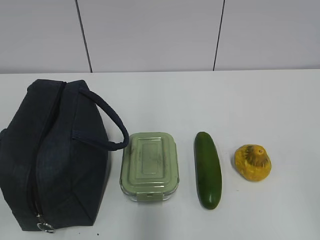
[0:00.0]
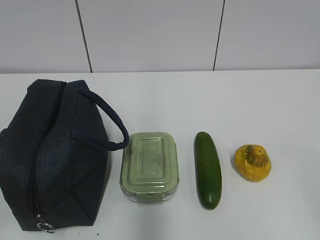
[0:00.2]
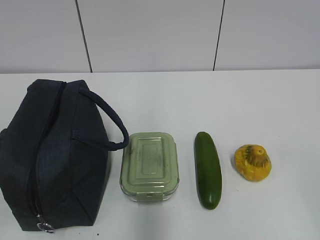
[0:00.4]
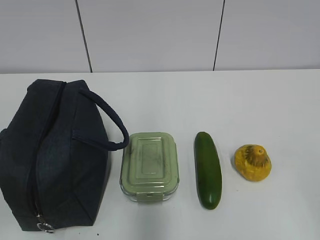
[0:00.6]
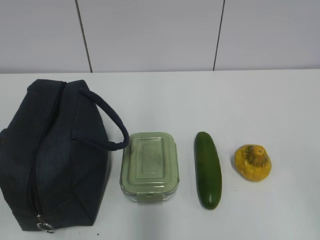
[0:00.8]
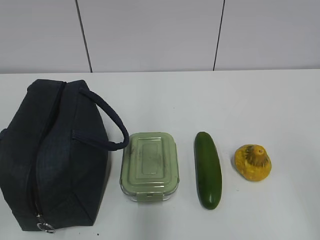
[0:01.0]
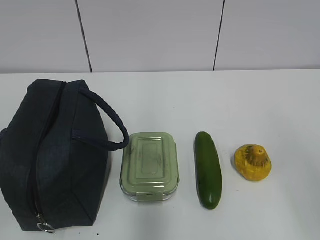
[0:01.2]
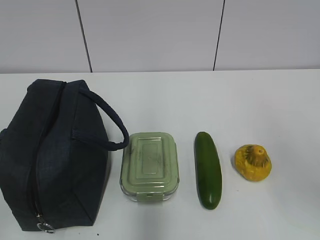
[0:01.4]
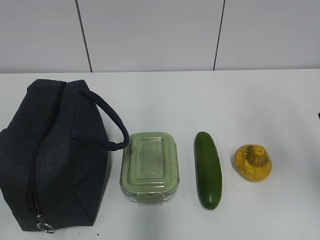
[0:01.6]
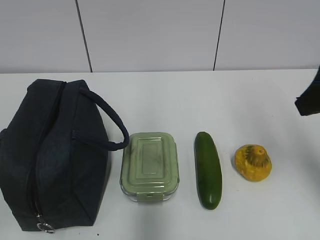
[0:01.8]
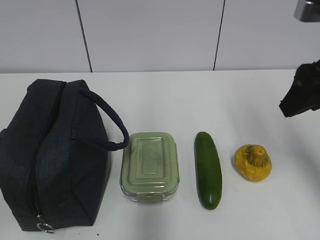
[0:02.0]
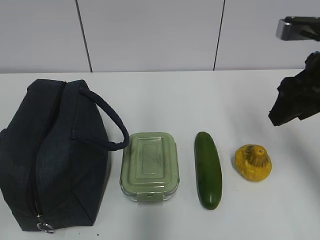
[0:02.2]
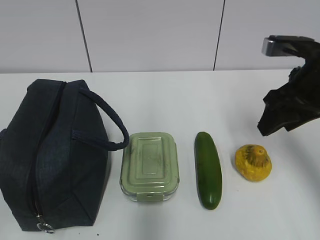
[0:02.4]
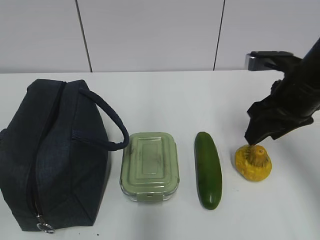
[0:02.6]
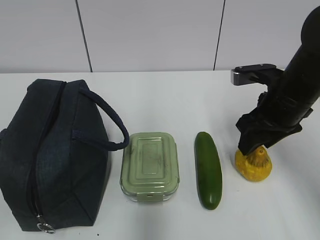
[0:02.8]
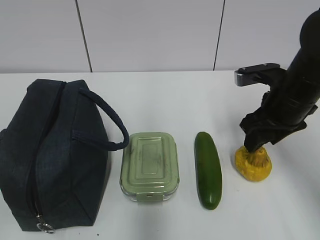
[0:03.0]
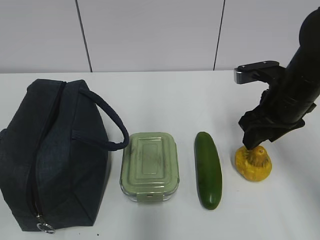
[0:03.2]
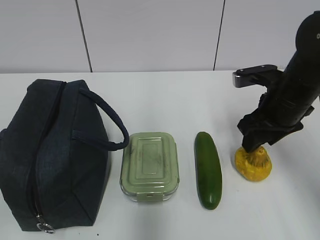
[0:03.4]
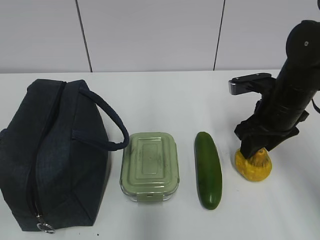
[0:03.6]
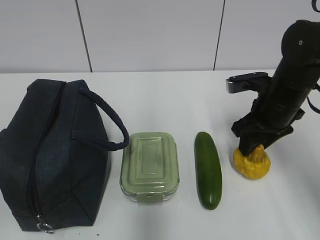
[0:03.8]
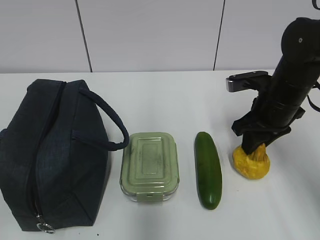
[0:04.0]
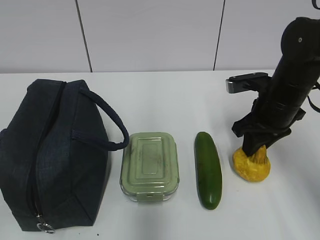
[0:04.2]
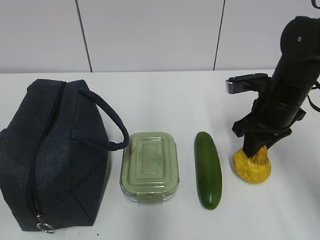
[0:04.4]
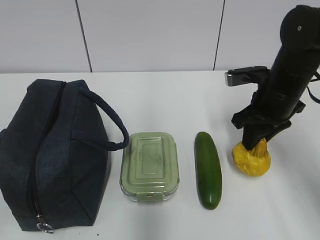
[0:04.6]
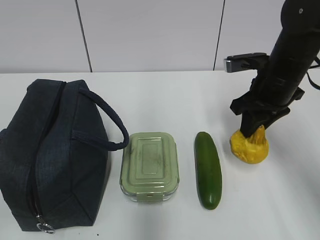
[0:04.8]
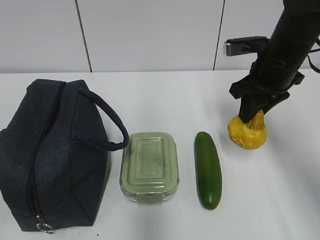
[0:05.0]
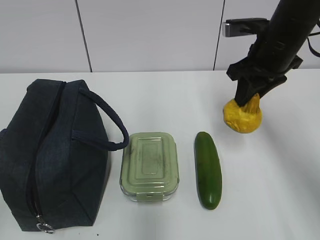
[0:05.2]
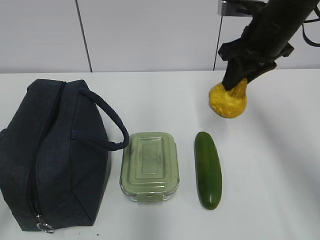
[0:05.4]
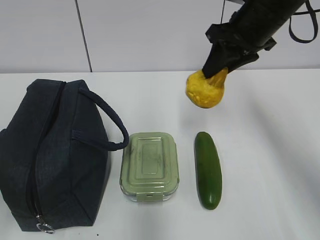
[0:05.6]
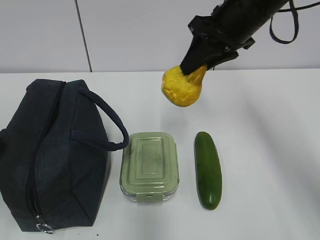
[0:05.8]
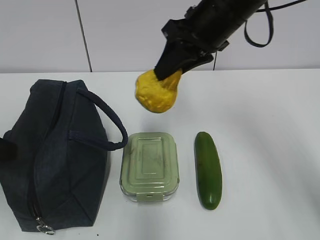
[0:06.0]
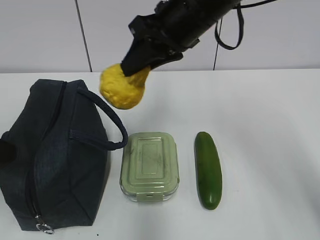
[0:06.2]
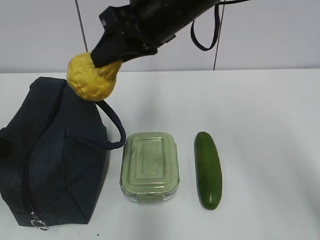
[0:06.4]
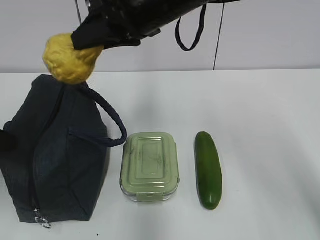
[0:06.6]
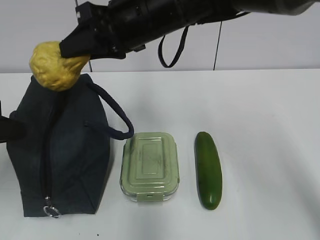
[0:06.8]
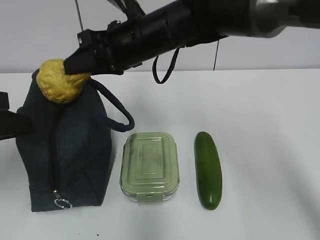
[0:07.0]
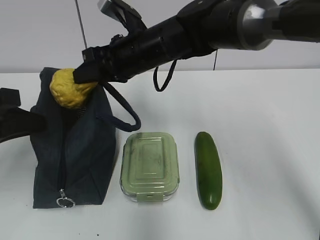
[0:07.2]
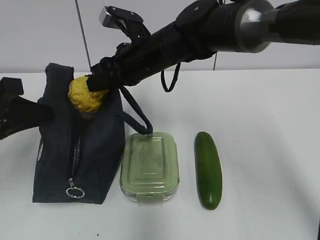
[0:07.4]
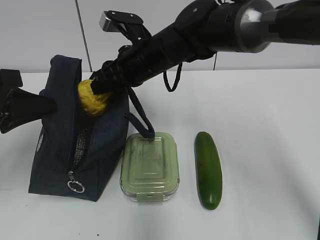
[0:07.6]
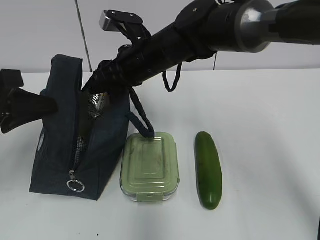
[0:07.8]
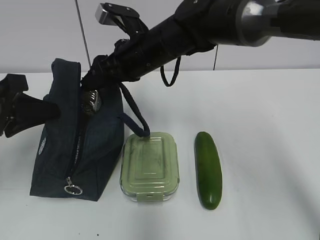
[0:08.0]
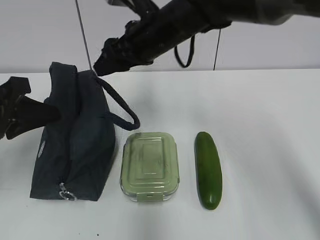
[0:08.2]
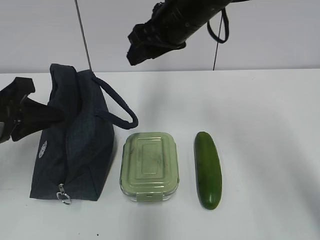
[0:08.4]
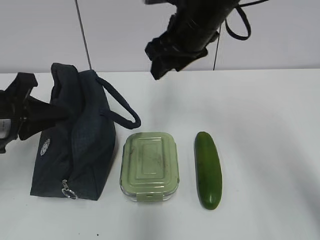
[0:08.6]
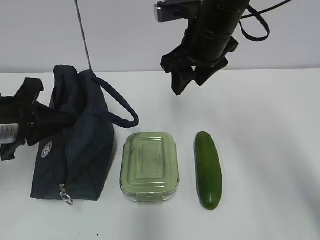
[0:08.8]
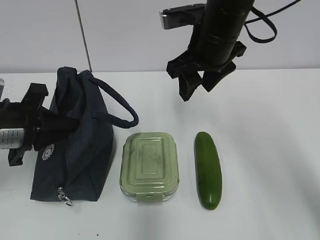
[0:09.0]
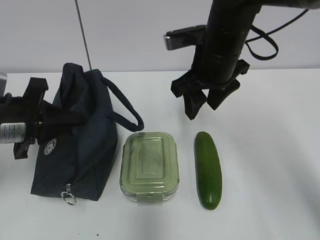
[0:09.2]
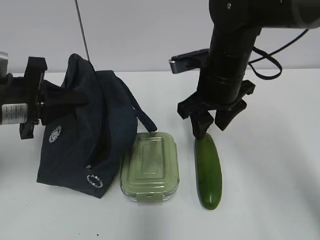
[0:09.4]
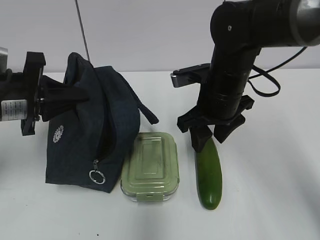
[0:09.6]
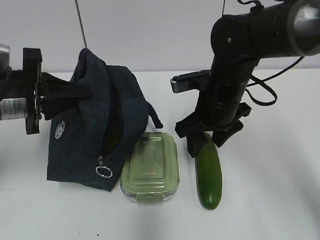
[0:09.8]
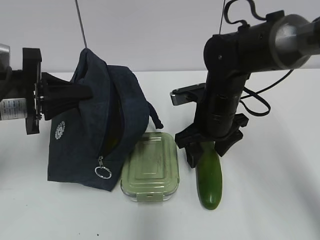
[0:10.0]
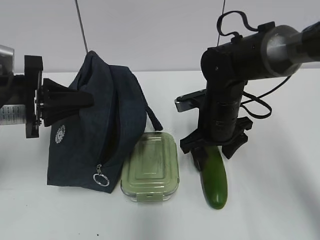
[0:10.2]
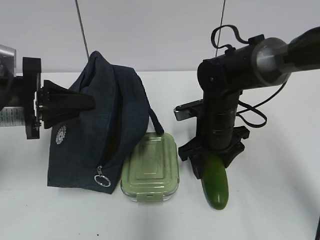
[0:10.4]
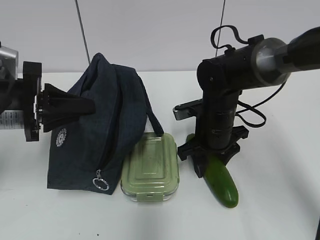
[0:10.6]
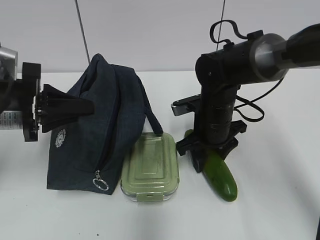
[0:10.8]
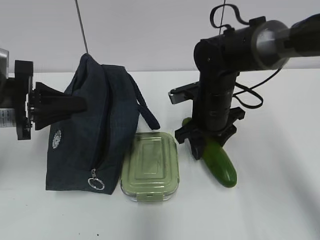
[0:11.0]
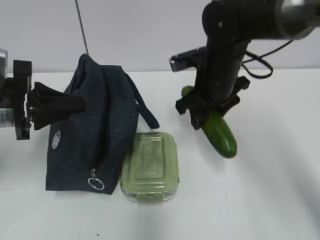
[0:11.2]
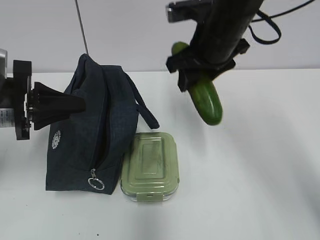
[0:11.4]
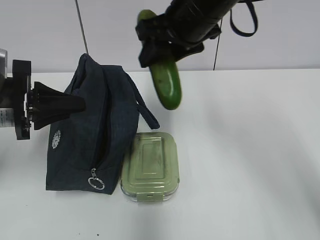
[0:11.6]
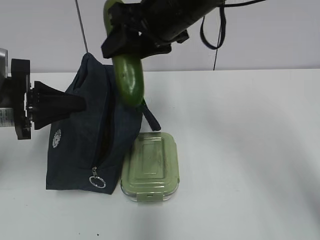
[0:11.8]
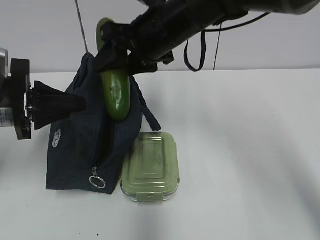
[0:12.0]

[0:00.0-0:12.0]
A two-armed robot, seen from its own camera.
0:01.6 to 0:03.0: The right gripper is displaced forward and downward by roughly 20 cm.
0:03.0 to 0:04.4: The right gripper closes its fingers.
0:04.4 to 0:06.0: The right gripper is displaced upward and to the left by approximately 15 cm. The left gripper moves forward, some 20 cm.
0:06.0 to 0:07.6: The right gripper moves to the left and downward, some 15 cm, while the left gripper moves approximately 5 cm, and closes its fingers.
0:07.6 to 0:09.0: The left gripper goes some 5 cm downward, while the right gripper goes roughly 10 cm to the right.
0:09.0 to 0:10.4: The right gripper travels downward by roughly 15 cm.
0:10.4 to 0:12.0: The right gripper moves upward and to the left, approximately 20 cm.

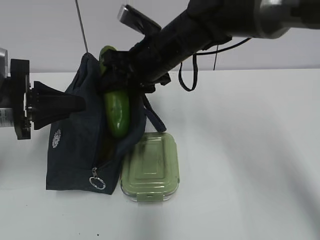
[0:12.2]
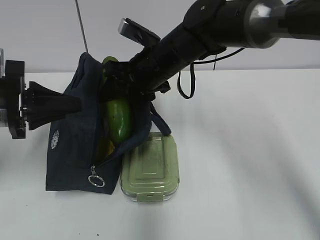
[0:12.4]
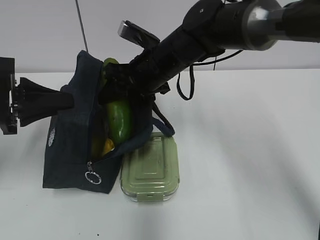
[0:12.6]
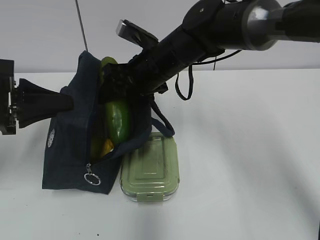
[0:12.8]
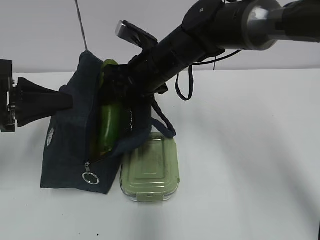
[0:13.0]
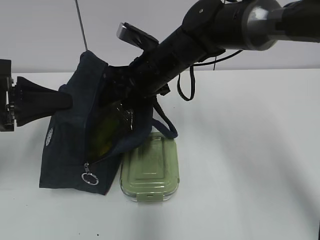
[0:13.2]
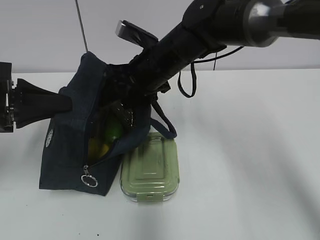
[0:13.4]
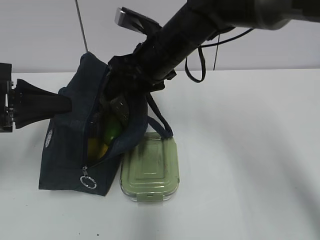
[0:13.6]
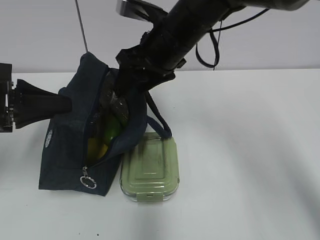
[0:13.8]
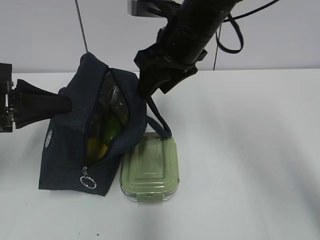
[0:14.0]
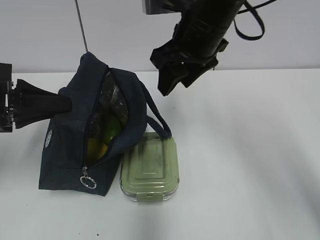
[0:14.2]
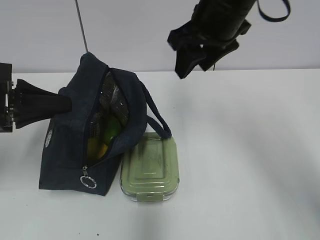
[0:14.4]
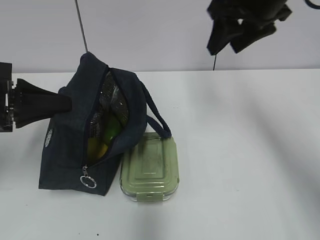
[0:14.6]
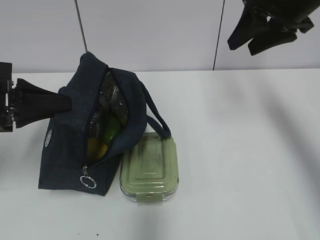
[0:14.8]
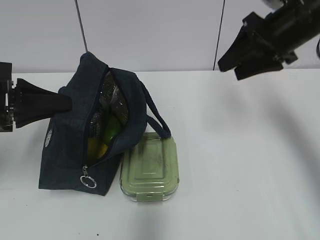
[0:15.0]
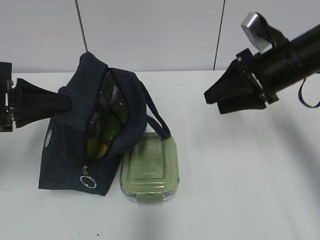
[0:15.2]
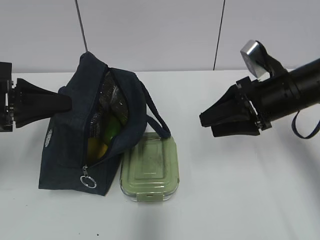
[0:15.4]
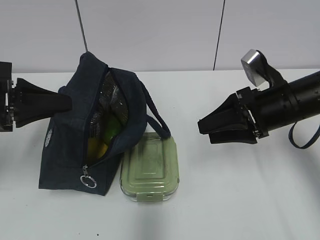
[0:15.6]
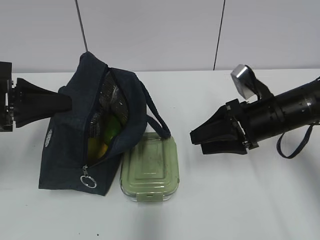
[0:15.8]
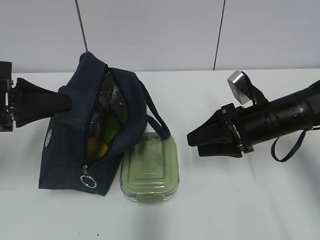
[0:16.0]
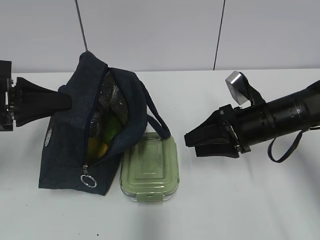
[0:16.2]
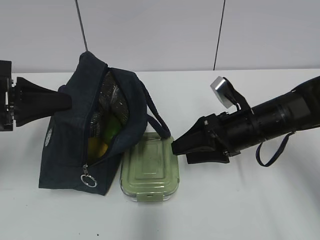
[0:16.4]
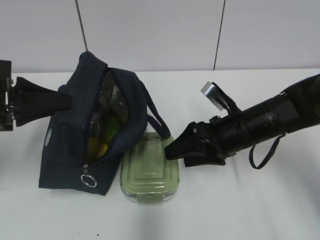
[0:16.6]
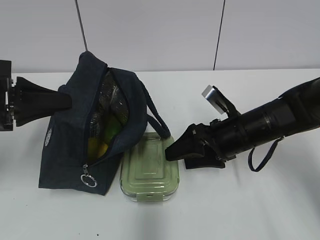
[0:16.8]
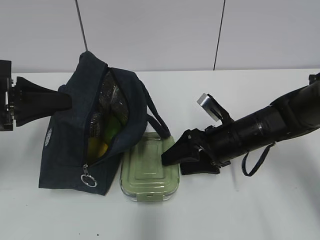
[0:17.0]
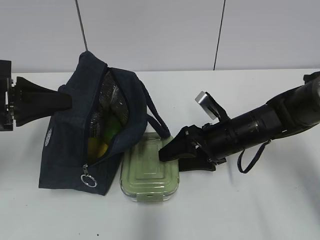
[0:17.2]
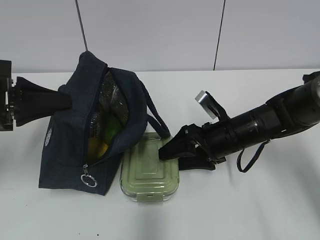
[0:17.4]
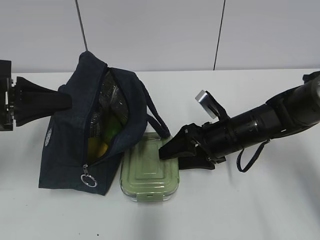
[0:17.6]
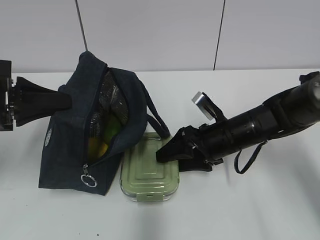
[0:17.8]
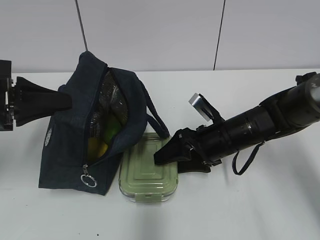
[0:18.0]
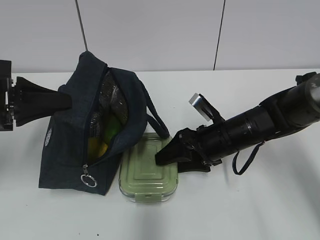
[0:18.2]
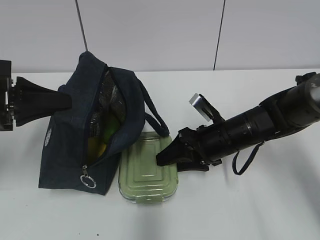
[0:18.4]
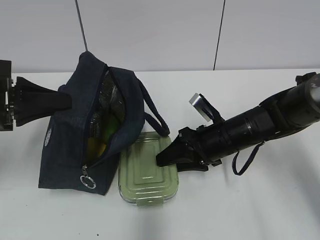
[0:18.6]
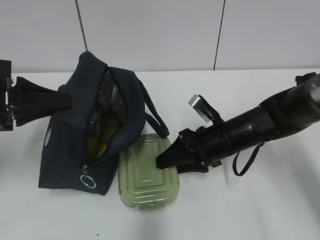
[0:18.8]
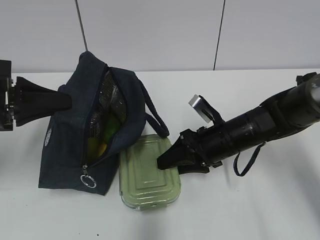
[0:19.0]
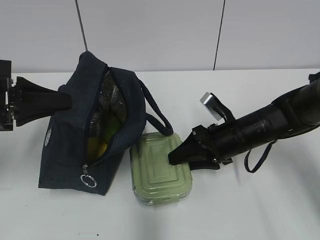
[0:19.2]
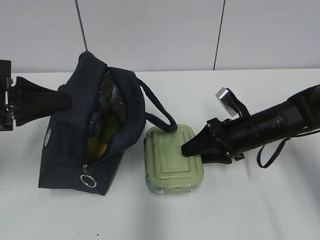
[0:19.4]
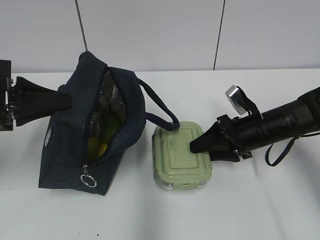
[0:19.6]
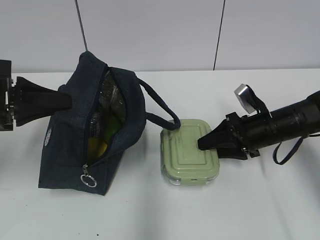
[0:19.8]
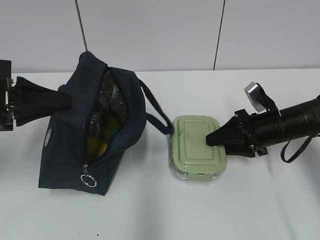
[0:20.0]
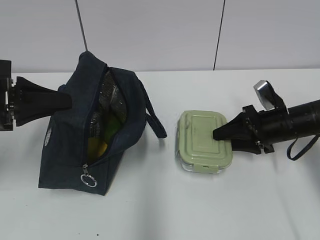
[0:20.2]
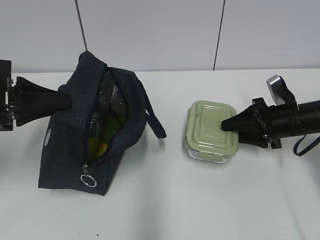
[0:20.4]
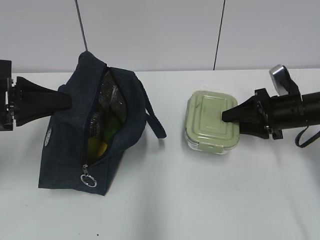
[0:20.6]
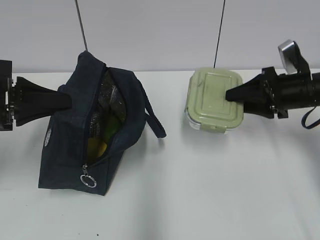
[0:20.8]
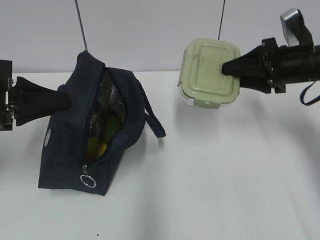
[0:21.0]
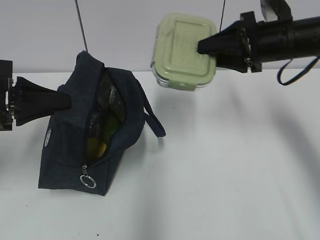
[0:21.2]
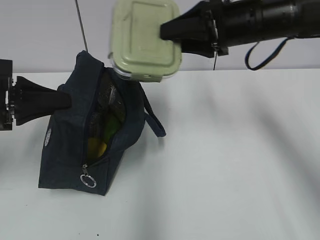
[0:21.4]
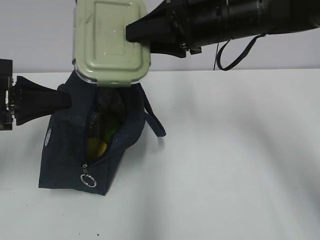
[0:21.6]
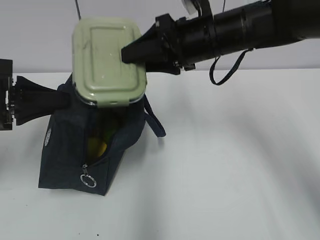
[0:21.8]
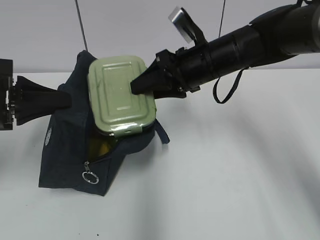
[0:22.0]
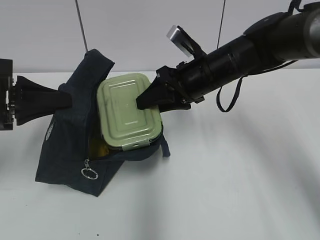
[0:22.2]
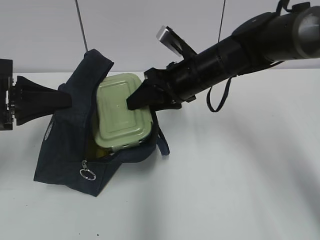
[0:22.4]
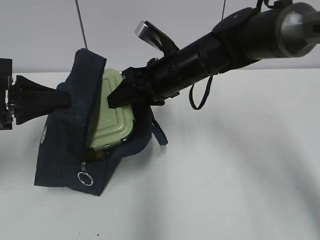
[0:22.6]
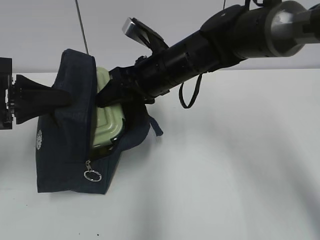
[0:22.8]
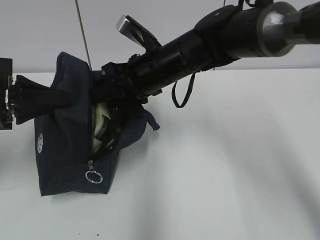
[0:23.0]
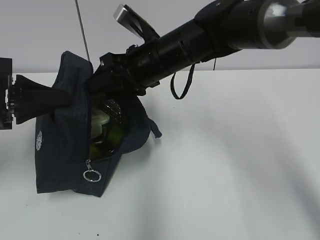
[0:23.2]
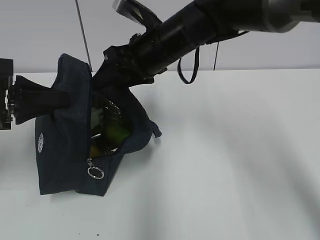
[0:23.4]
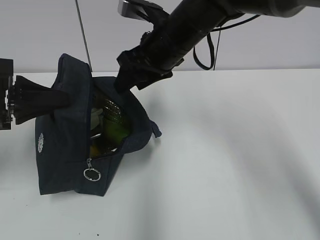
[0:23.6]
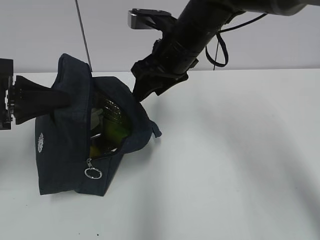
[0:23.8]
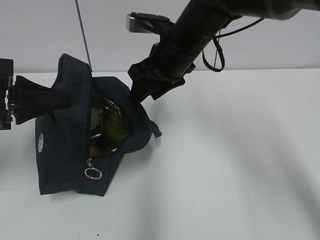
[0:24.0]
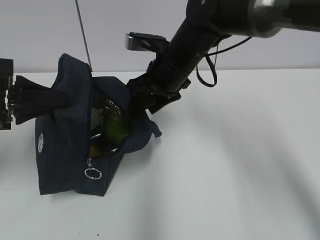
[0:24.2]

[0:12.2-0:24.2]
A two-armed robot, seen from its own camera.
0:12.2 to 0:13.8: The grippers move only a little.
0:13.8 to 0:15.2: The right gripper travels to the right by roughly 15 cm.
0:15.2 to 0:16.6: The right gripper goes roughly 10 cm downward and to the left.
0:16.6 to 0:18.2: The grippers make only small movements.
0:18.2 to 0:19.8: The right gripper goes roughly 10 cm to the right.
0:19.8 to 0:21.2: The right gripper heads upward, covering approximately 15 cm.
0:21.2 to 0:22.6: The right gripper moves to the left, some 15 cm.
